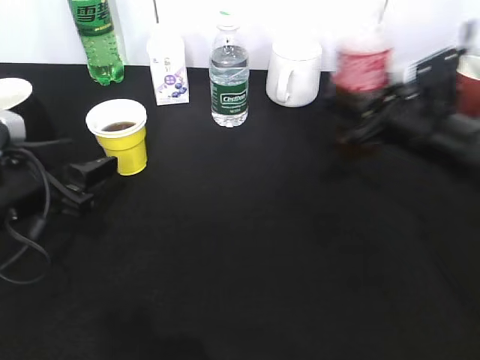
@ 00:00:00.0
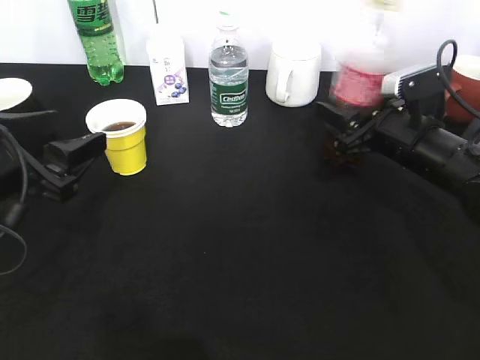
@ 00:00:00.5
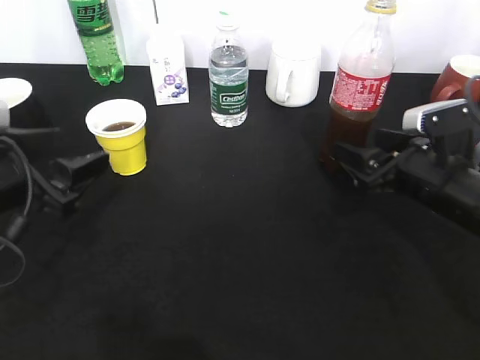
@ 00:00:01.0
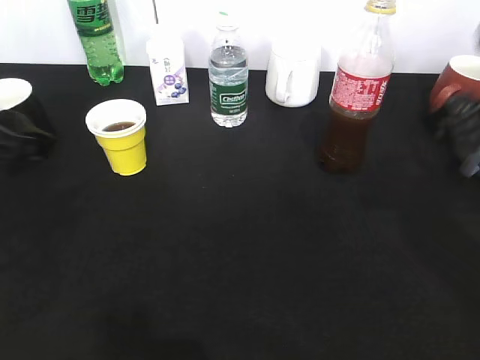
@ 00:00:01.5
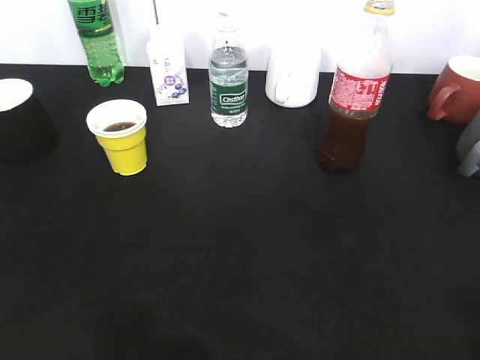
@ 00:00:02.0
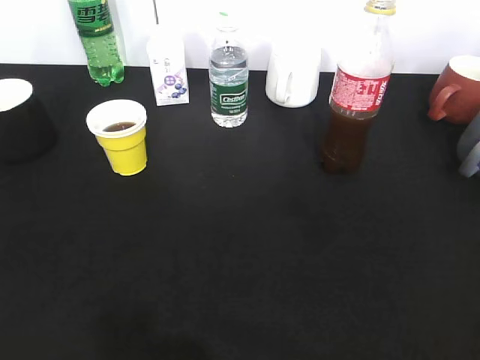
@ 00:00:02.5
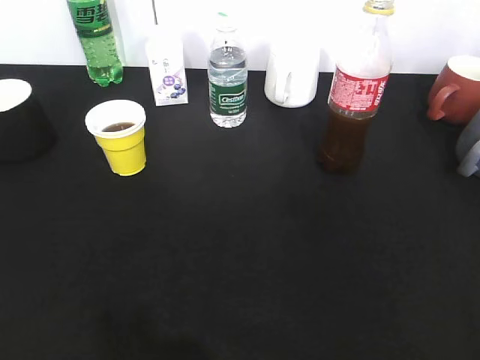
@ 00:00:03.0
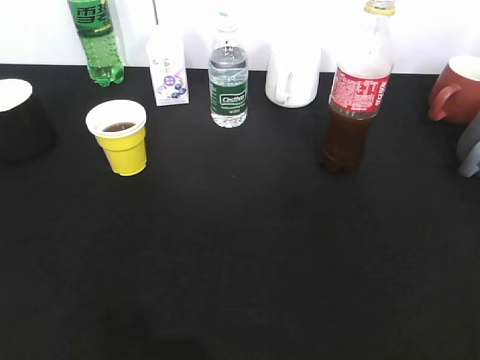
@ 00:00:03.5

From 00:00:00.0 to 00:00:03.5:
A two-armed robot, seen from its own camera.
Step, from 00:00:00.0 to 00:00:01.0: Place the cola bottle on the table with right gripper.
From 00:00:00.0 to 00:00:02.0: Both grippers move backward and upward, roughly 30 cm. The right gripper opens up.
